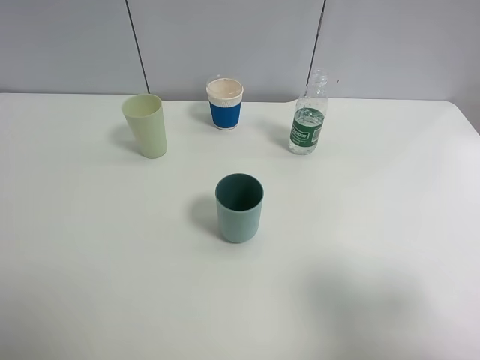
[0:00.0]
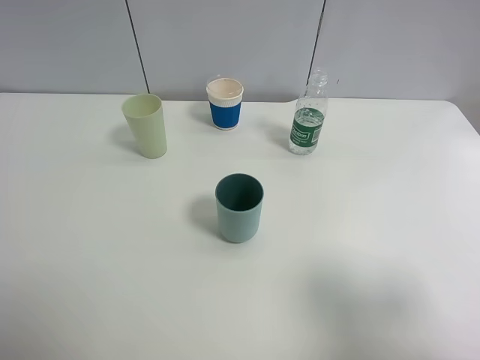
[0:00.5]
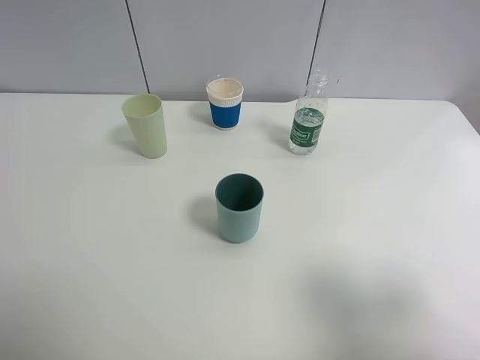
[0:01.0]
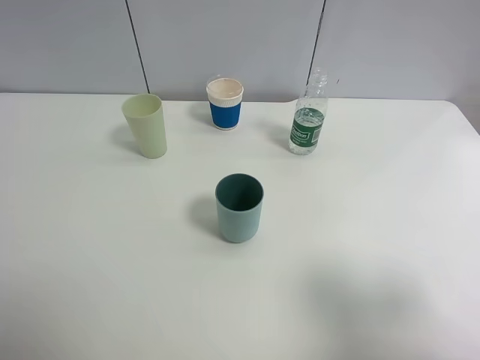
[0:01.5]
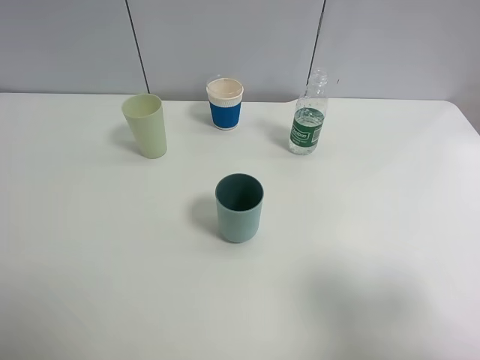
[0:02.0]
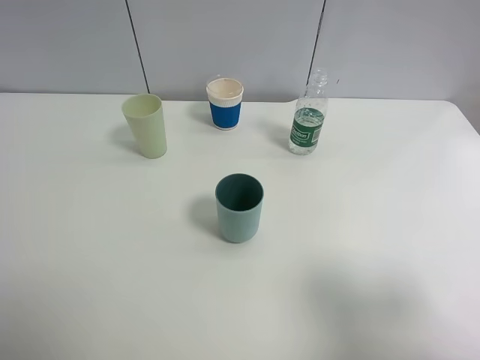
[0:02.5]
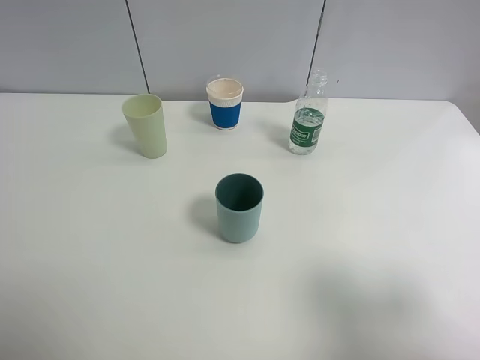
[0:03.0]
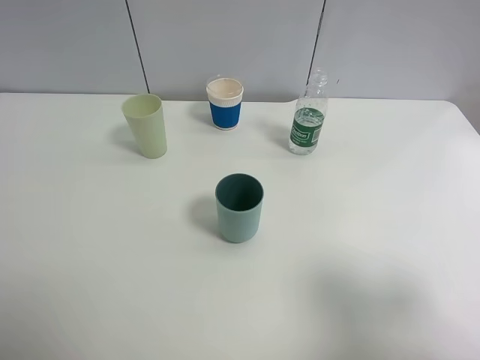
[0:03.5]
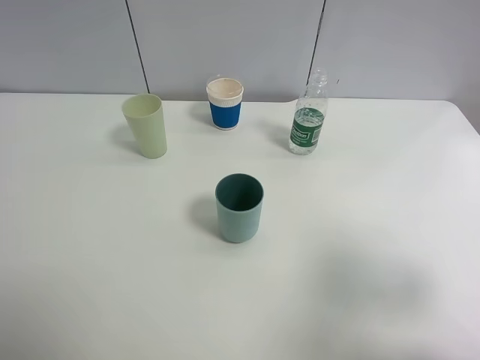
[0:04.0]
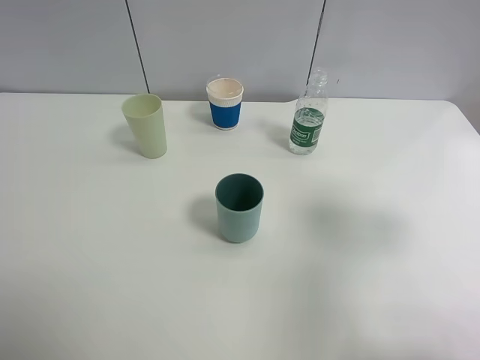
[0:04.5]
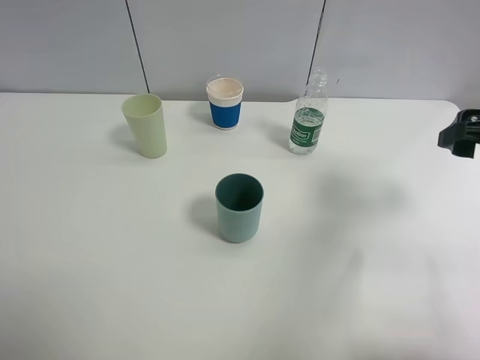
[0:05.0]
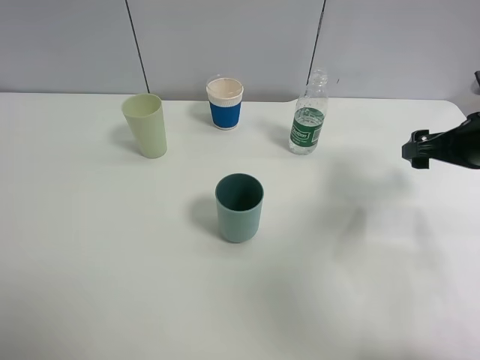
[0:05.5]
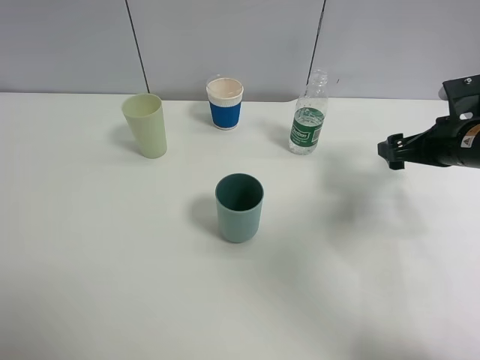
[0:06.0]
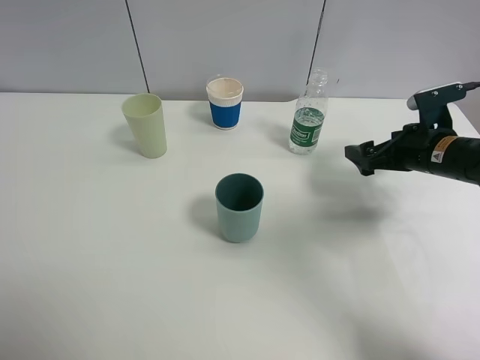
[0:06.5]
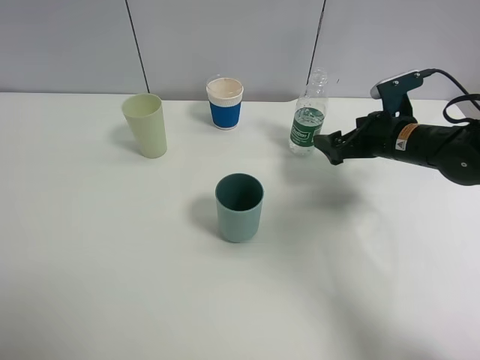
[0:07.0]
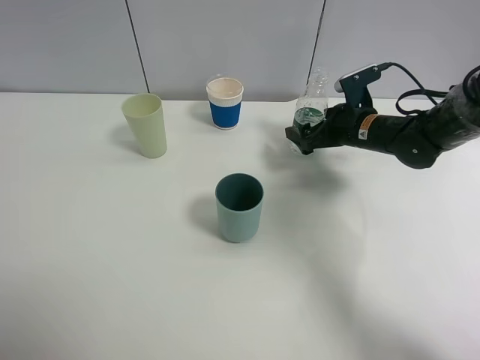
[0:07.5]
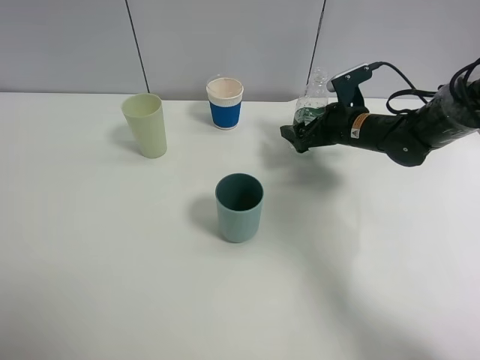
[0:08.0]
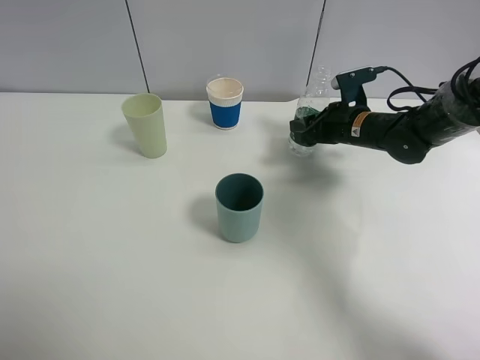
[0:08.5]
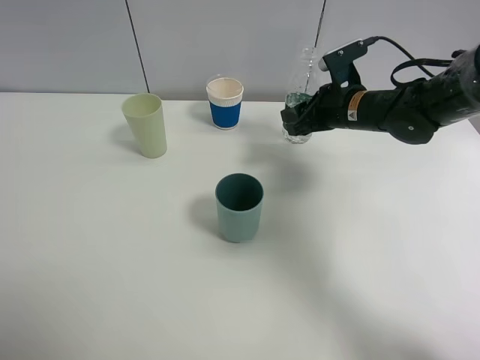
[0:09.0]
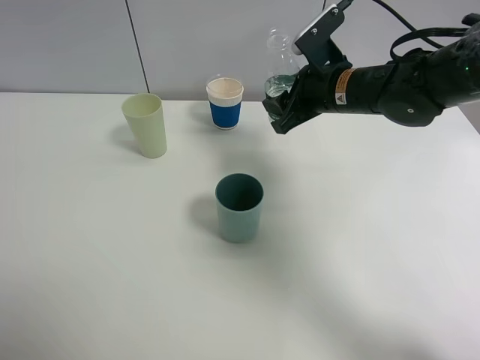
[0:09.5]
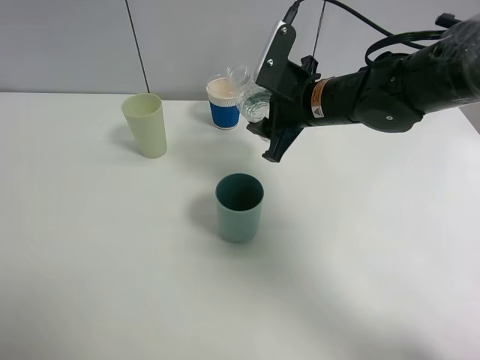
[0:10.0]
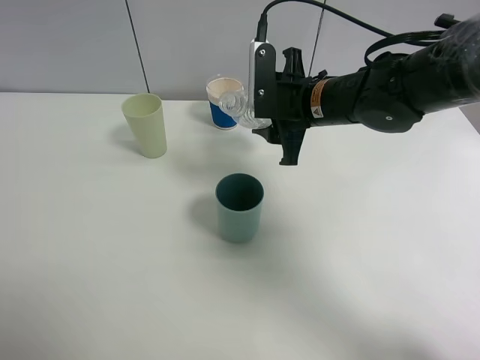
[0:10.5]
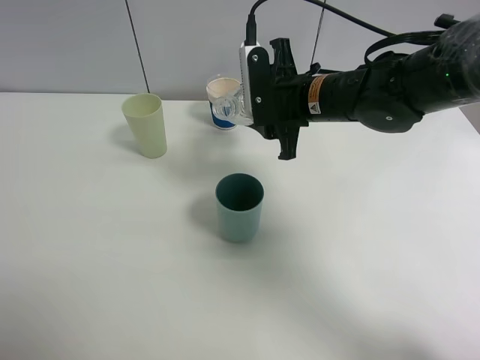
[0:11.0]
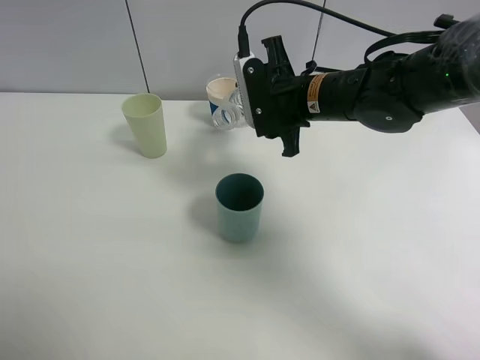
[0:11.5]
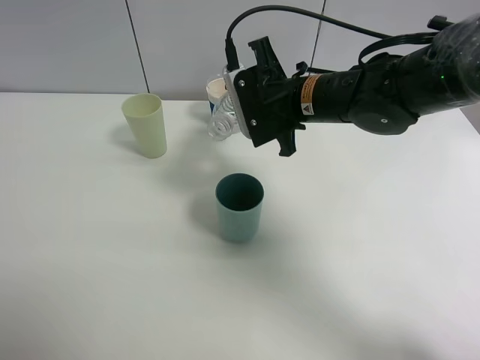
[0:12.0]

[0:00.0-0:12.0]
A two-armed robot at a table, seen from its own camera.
Task of the whole recording: use a clamp to hold the bottle of the drink, pour the beverage into a random cup, then clamp the cup containing the drink and pour the drink into another random cup.
Step, 0:00.0 to 0:09.0: Pick up the drink bottle with right gripper.
0:00.0 to 0:02.0: The two grippers keep their place.
0:02.0 to 0:04.0: The right gripper shifts some 5 cm forward.
0:04.0 to 0:06.0: The right gripper moves forward and downward, some 25 cm.
0:06.0 to 0:08.0: The right gripper heads to the left, forward and downward, covering roughly 15 cm.
0:08.0 to 0:10.0: The right gripper heads to the left, upward and backward, covering some 15 cm, and closes its fingers.

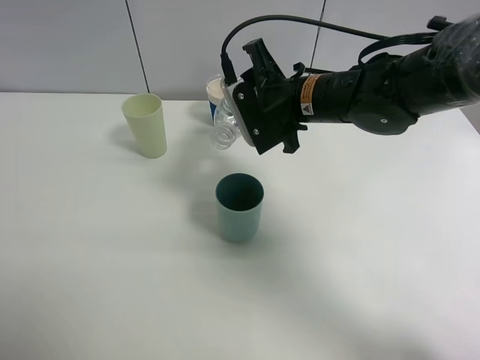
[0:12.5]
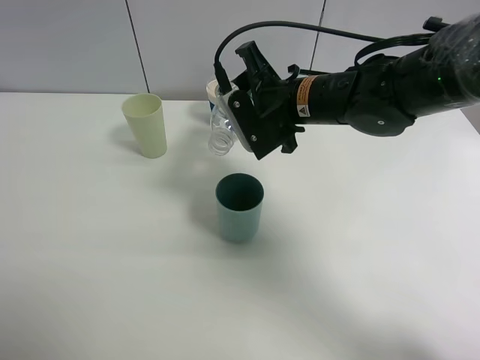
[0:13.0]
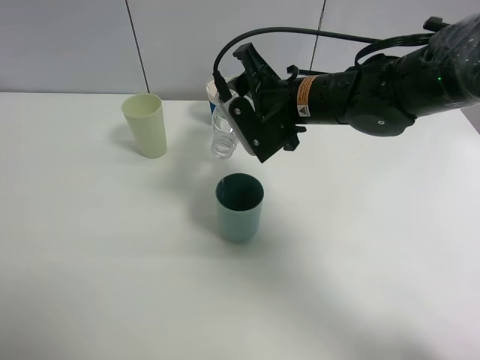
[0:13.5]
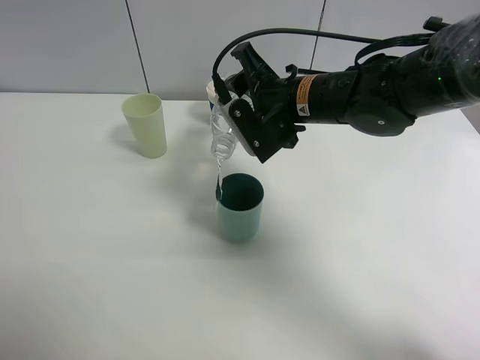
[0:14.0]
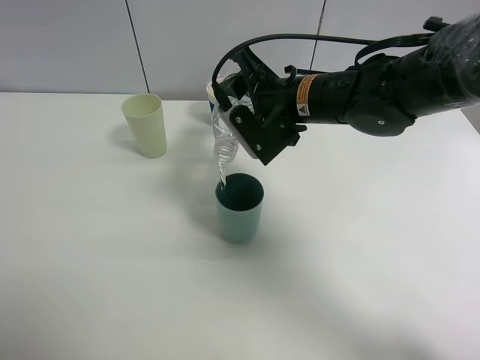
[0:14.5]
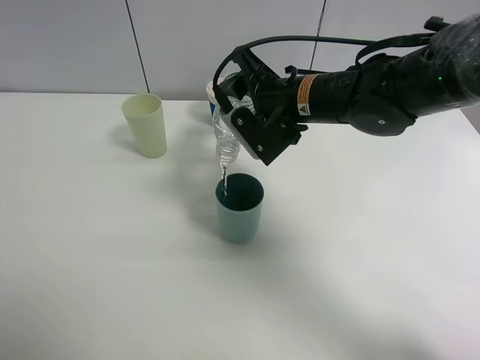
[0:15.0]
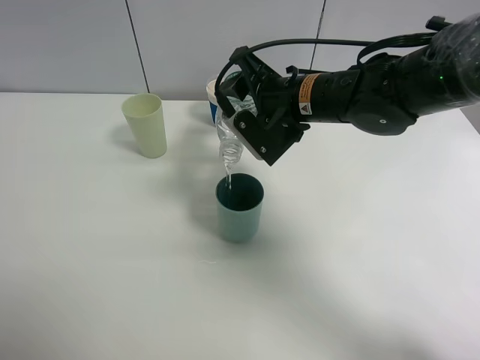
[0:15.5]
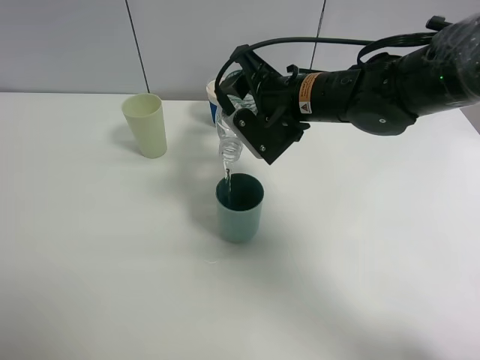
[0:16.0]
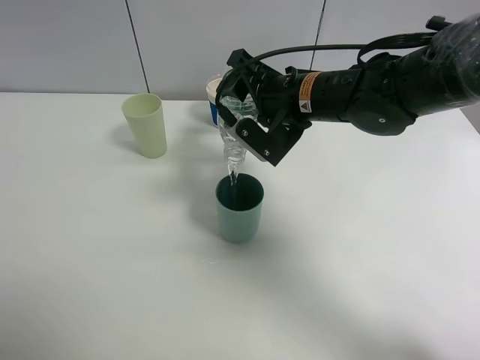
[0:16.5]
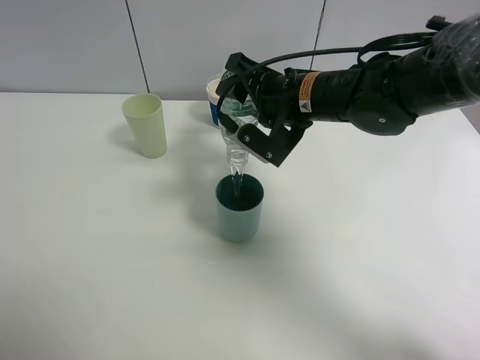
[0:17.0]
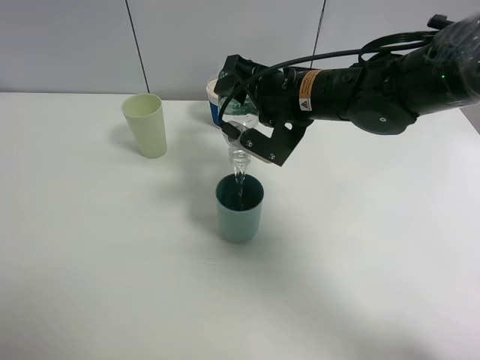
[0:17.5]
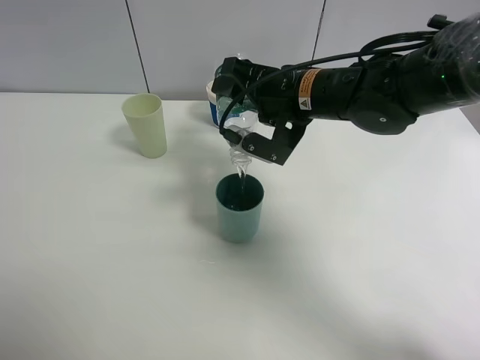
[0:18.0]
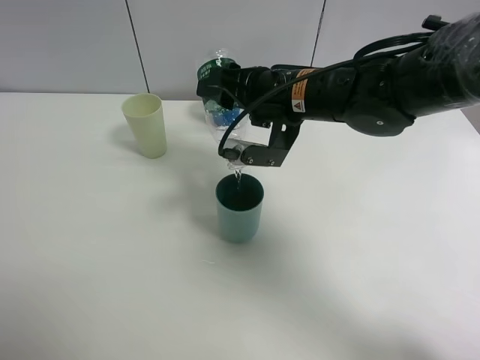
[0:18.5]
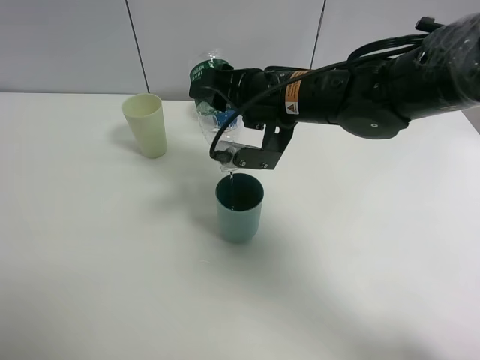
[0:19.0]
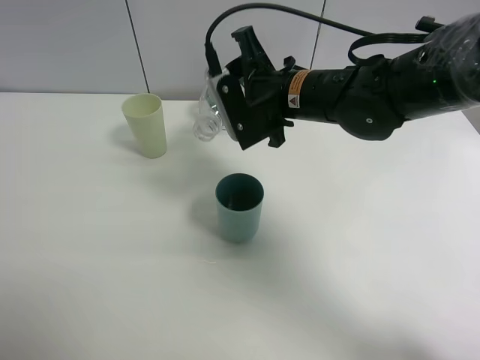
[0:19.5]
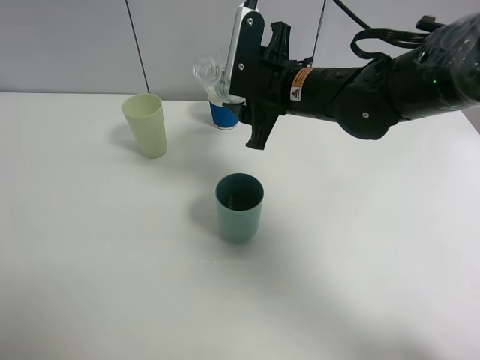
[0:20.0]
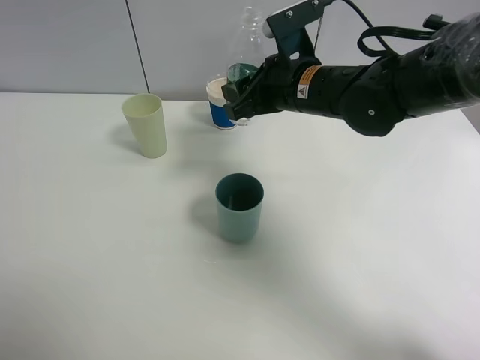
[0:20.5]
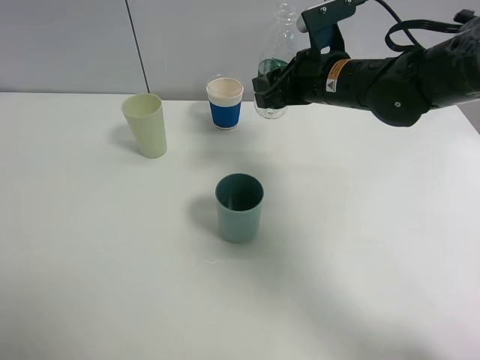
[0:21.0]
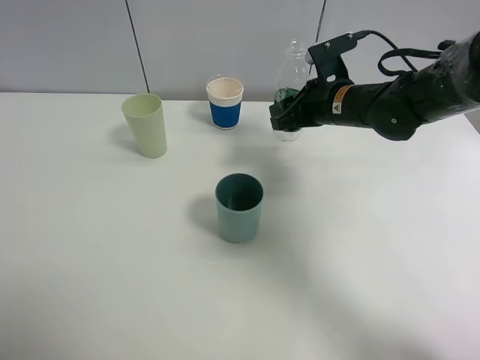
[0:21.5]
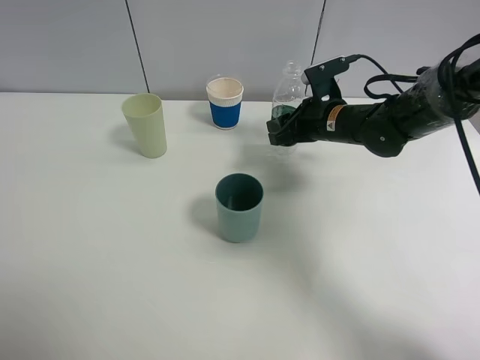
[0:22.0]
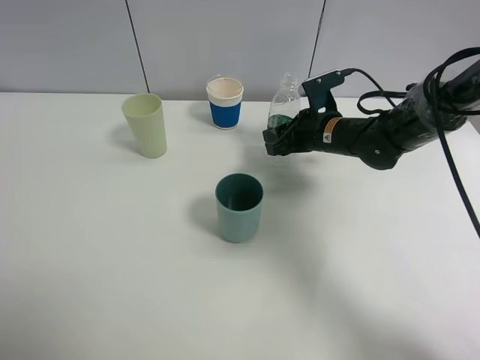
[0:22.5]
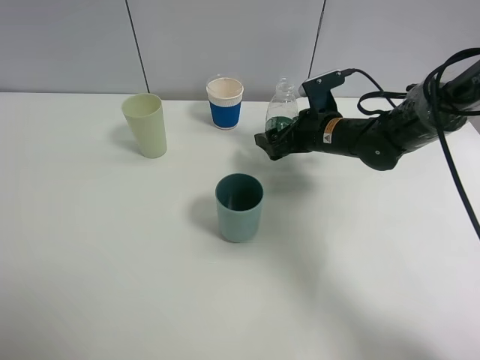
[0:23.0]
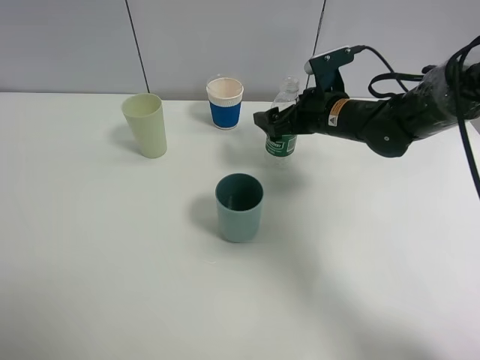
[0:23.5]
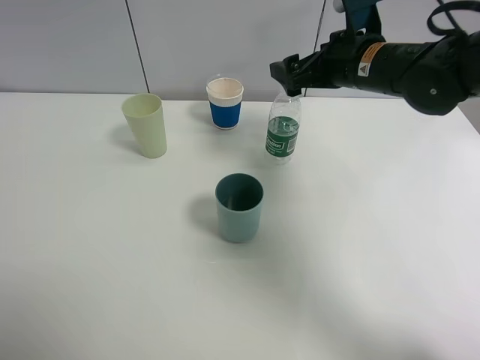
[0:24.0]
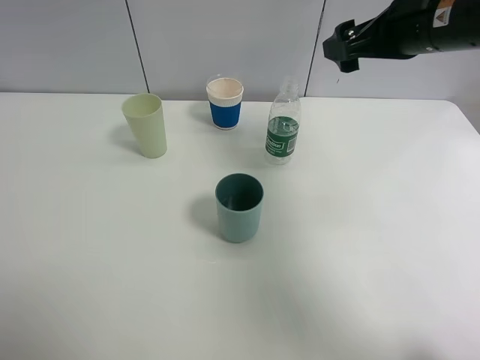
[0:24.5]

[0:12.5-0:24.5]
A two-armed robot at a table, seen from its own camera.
Task of the whole recording: use a clamp to hold the bottle of the drink, pour the beverage into a random cup, then clamp the cup containing the drink and pour the drink into another random cup.
Step, 0:12.5 to 0:19.0: Pour water into the green plastic cup with right gripper.
Step, 0:19.5 to 0:24.0: Place the drink bottle on the table with right gripper.
0:12.5 to 0:14.5: The grippers stay close to where they were, moving slightly.
0:14.5 to 0:16.5: There are only small adjustments of the grippers.
0:20.5 to 0:22.5: The right gripper goes some 10 cm downward and to the right.
0:22.5 to 0:24.5: The right gripper is displaced upward by about 20 cm, and opens.

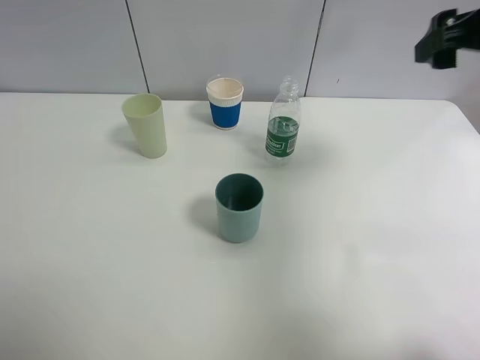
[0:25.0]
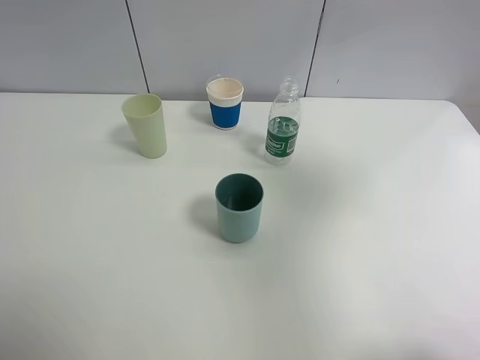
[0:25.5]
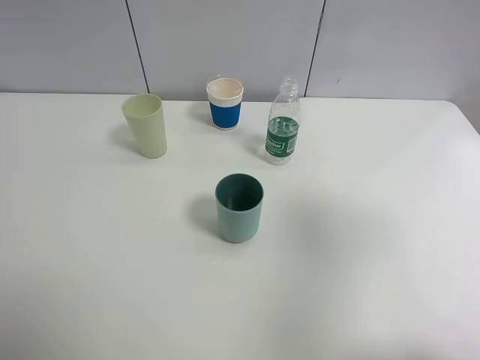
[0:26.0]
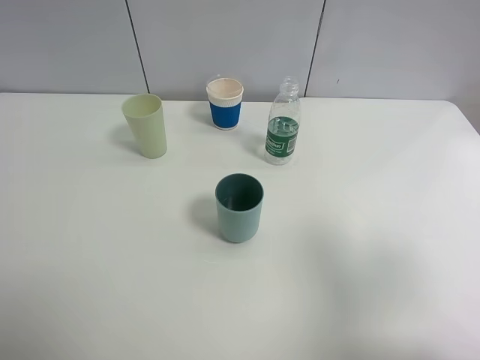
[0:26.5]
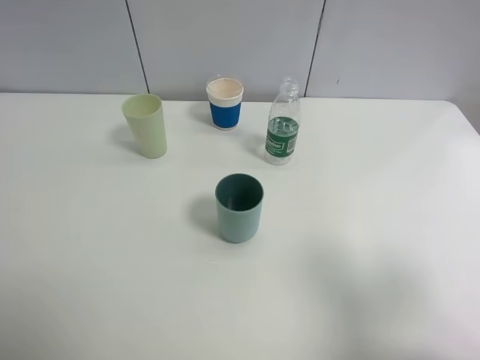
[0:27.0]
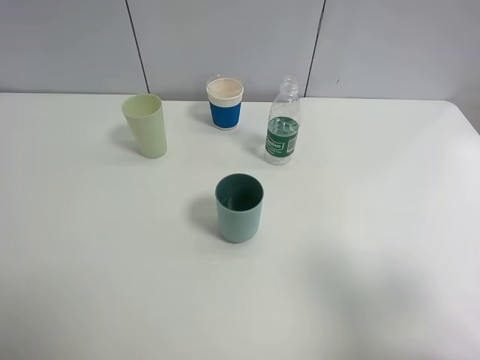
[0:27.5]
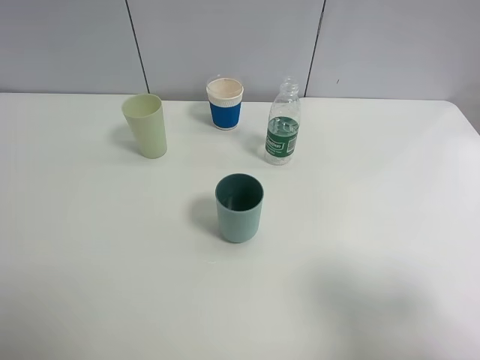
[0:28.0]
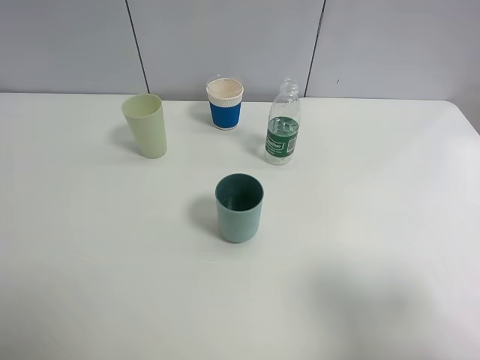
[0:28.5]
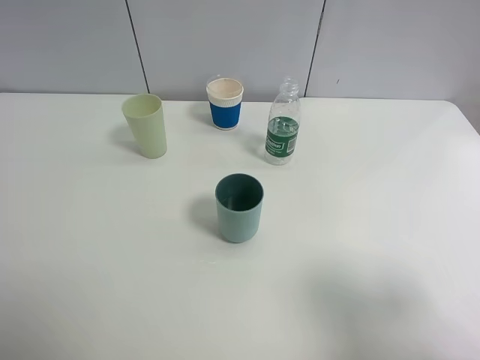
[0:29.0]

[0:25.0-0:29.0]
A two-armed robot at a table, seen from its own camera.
Task of the whole recording: use a clamp to hold the bottle of the drink, pour the beverage into a random cup, then clamp the cup containing the drink and pour the drink into another random cup.
0:25.0 to 0:27.0: The right gripper shifts about 25 cm backward.
